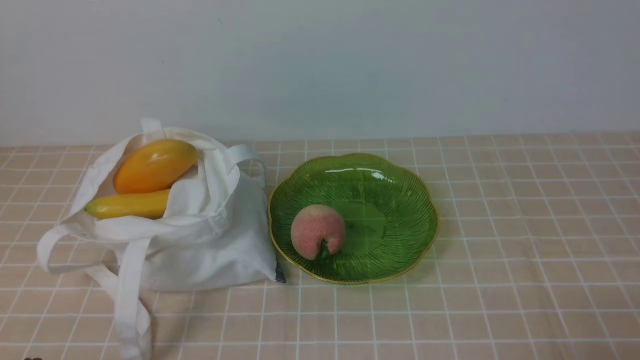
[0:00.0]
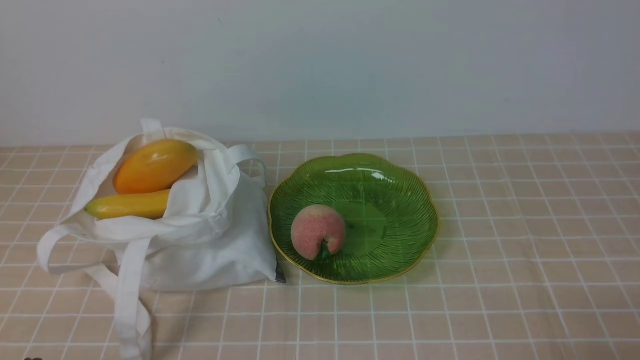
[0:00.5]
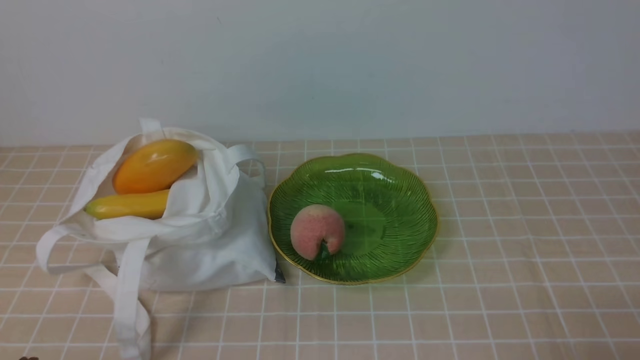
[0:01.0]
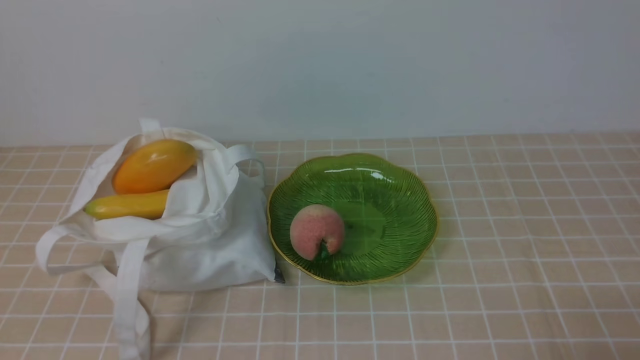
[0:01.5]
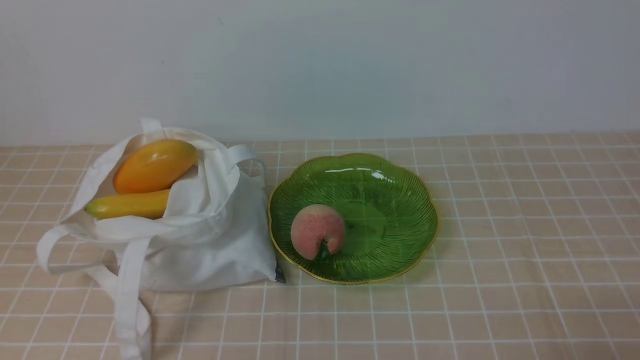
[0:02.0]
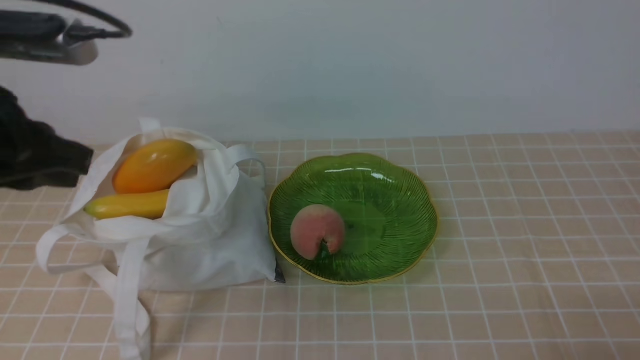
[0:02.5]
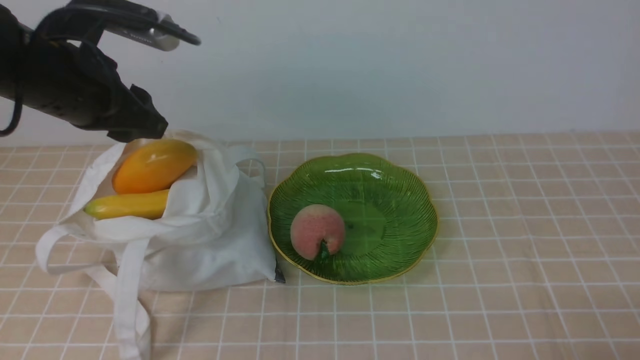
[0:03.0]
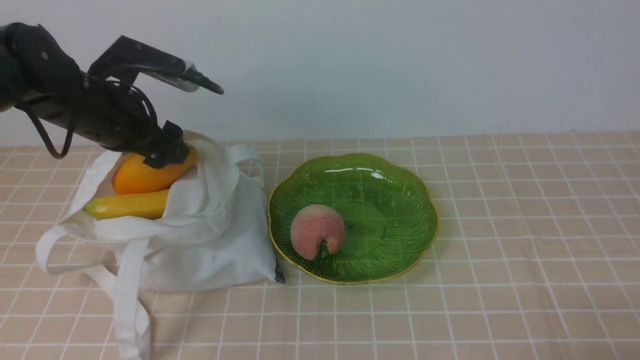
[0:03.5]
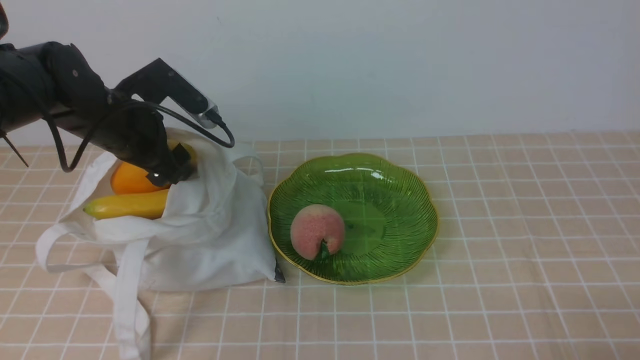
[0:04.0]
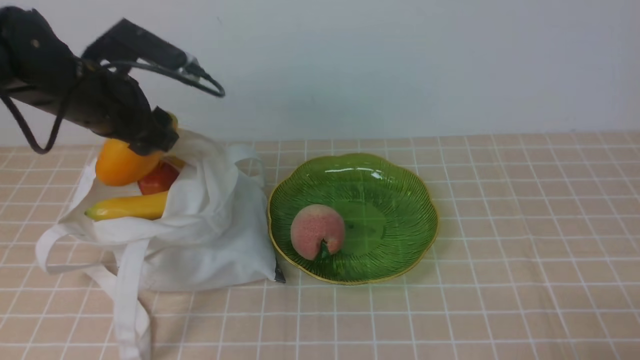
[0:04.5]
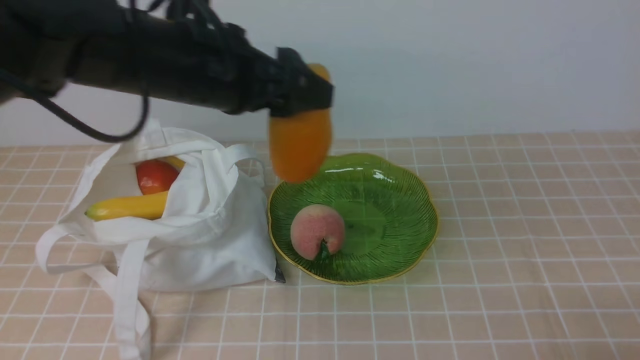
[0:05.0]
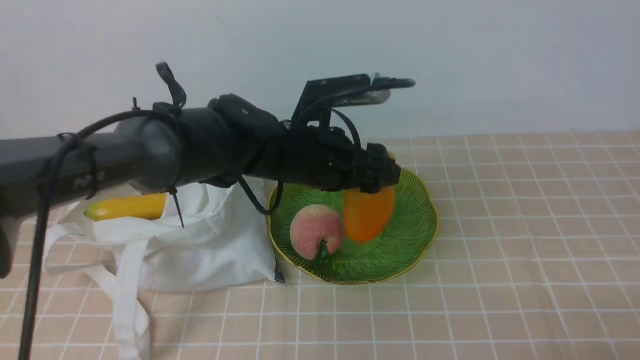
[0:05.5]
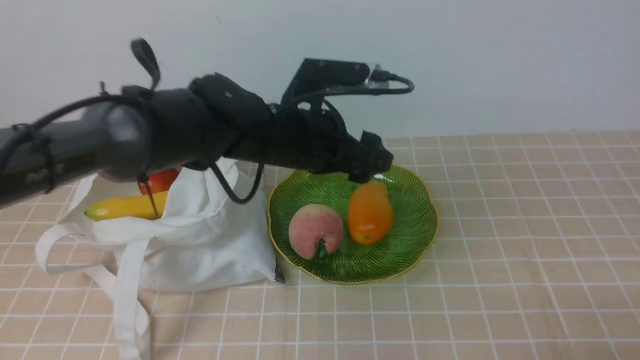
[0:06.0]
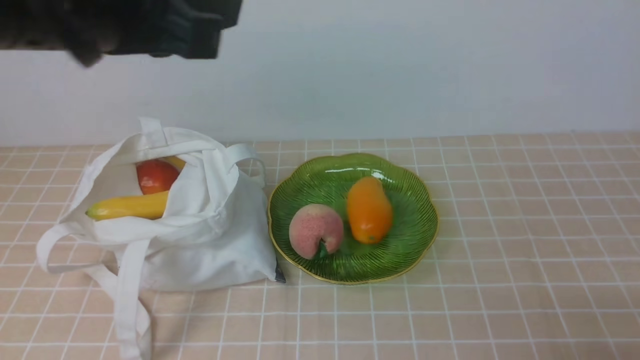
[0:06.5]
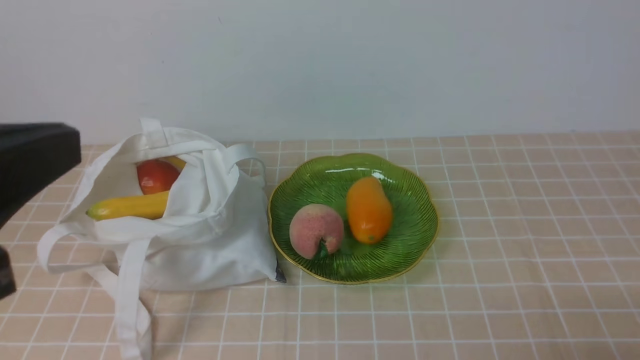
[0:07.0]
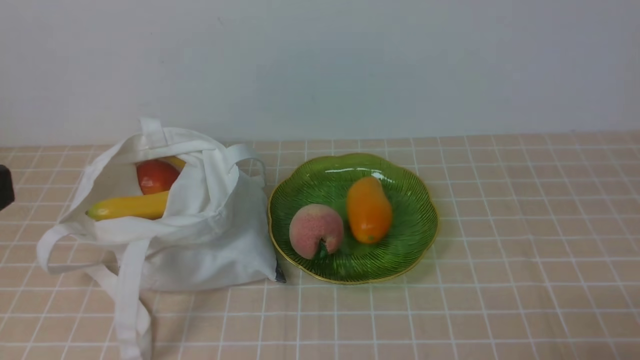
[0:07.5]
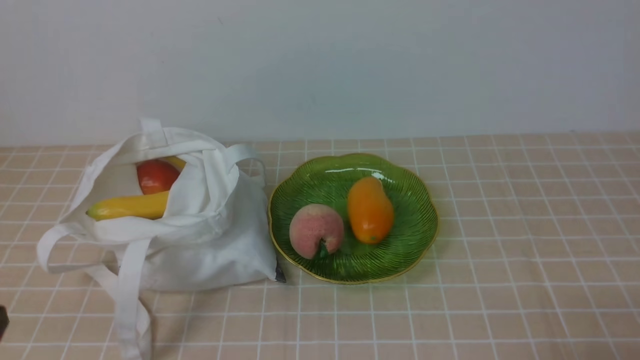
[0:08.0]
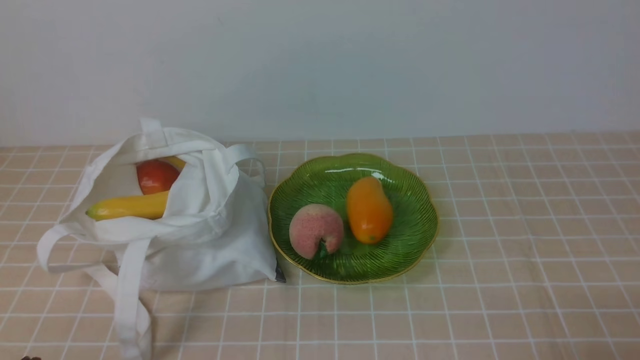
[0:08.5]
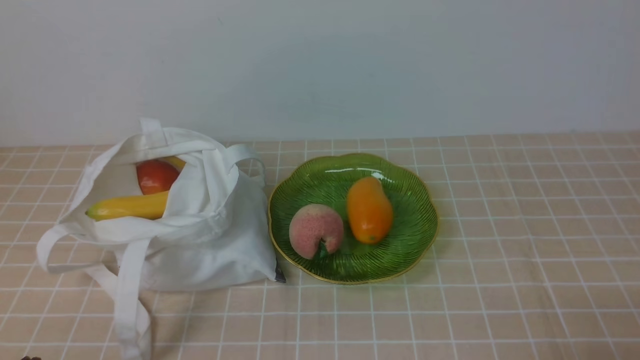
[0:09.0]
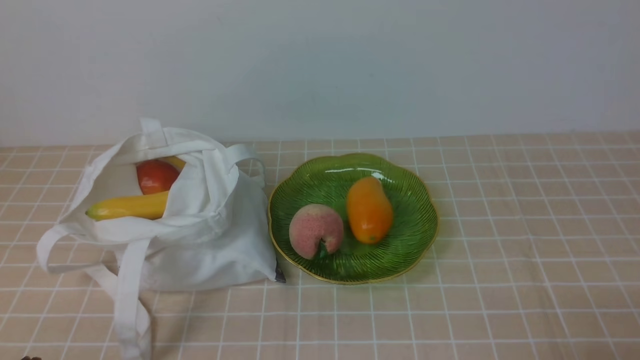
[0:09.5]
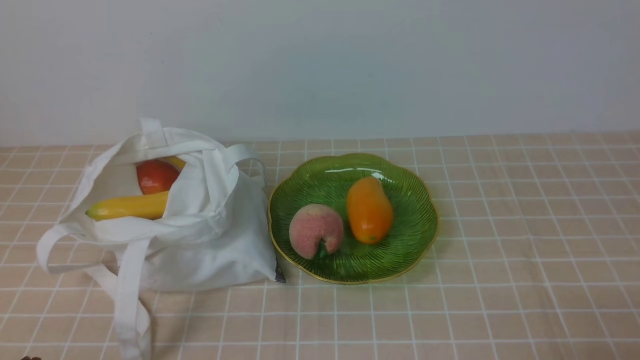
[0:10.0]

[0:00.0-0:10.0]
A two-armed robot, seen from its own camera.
Step, 0:00.0 to 0:04.0: use the left arm to grab a mango from the bag.
Step, 0:04.5 to 0:05.5: use the left arm to put the mango into the empty plate on the right.
0:02.0 to 0:04.0: The left gripper moves forward, approximately 35 cm, and opens up.
0:04.0 to 0:06.0: The left gripper moves to the right, about 20 cm.
0:06.0 to 0:08.0: The left gripper moves backward and to the left, about 40 cm, and closes its fingers.
